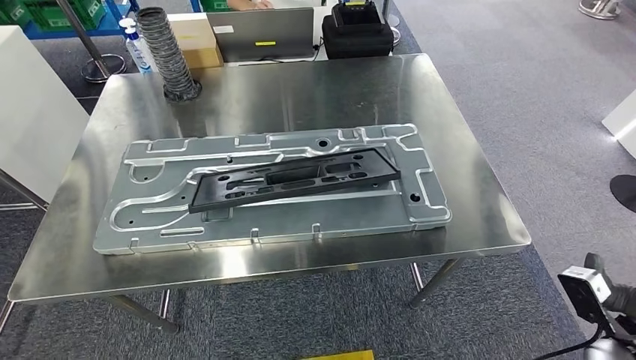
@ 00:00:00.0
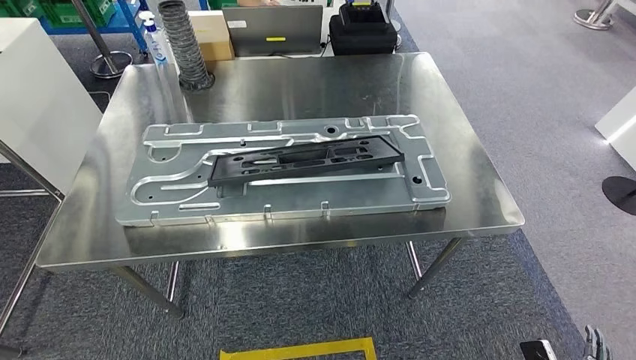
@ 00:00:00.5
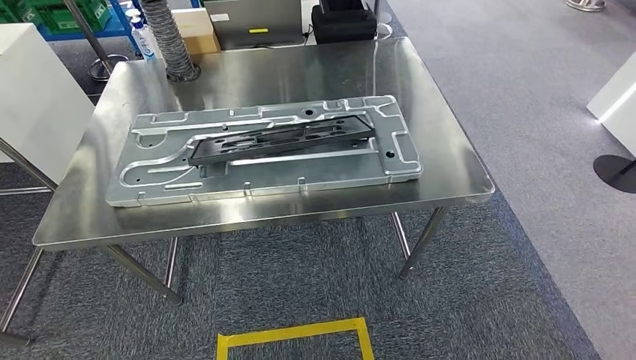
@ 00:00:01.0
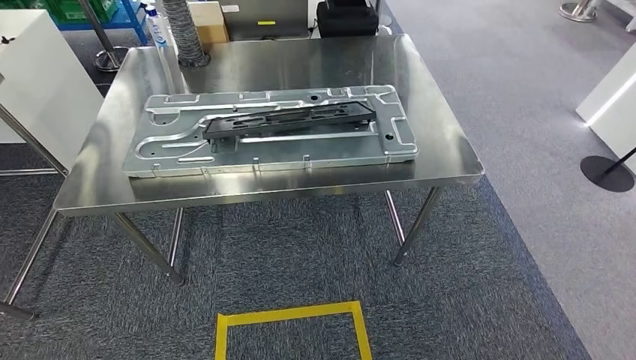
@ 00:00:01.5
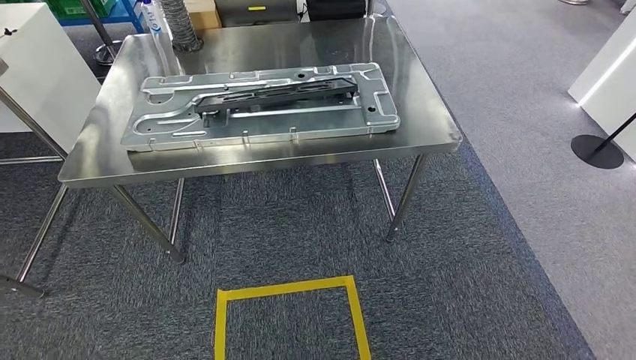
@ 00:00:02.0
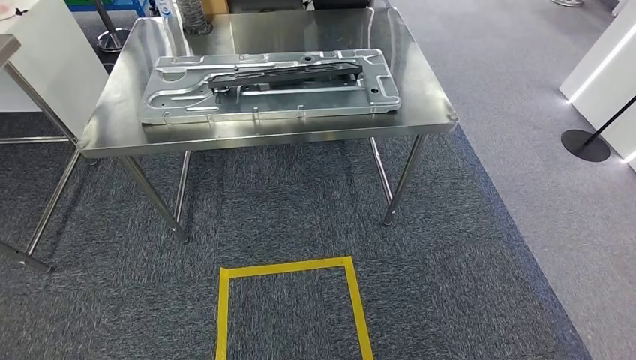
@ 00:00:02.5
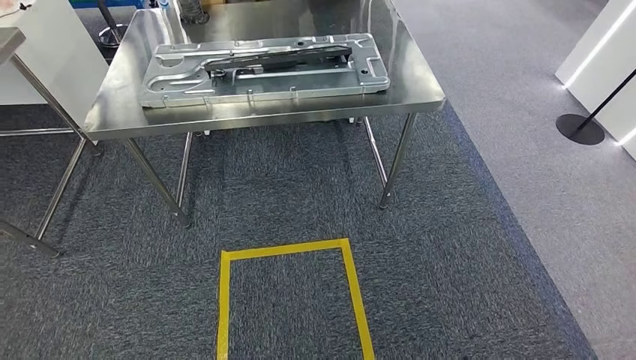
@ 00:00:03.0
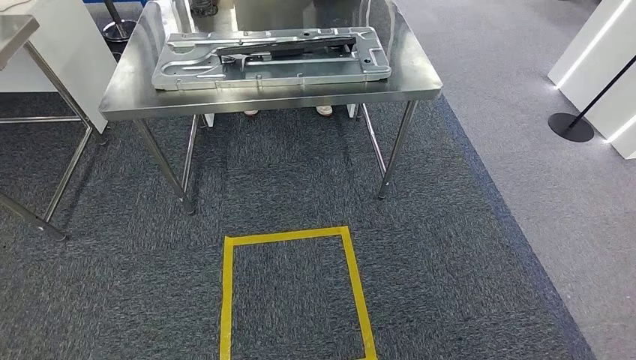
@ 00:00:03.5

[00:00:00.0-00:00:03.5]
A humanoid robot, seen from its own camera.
Step, 00:00:01.0 to 00:00:03.5: Return to the initial position at the shelf.
